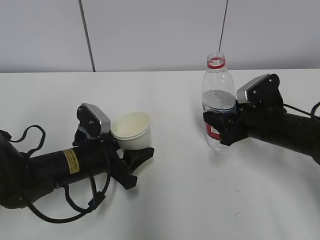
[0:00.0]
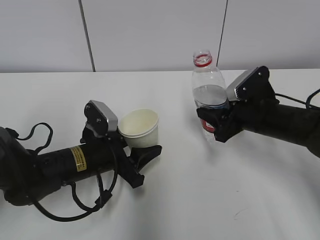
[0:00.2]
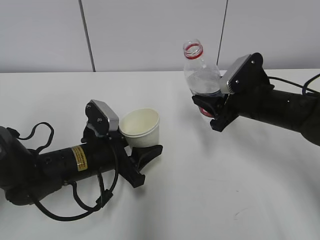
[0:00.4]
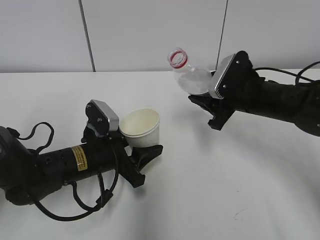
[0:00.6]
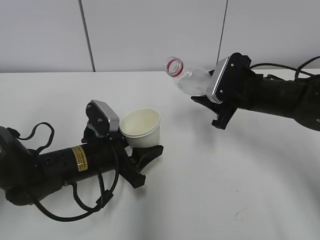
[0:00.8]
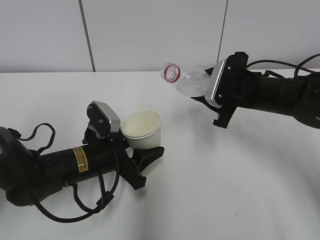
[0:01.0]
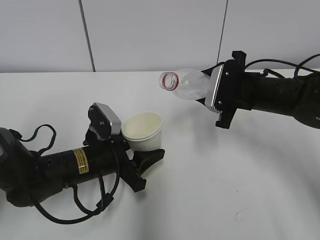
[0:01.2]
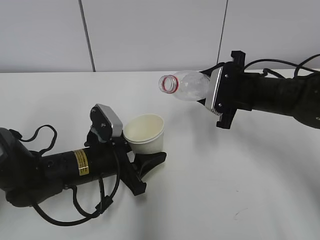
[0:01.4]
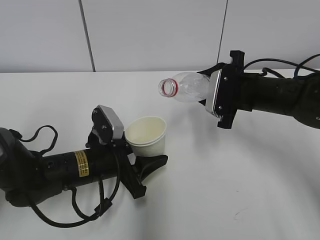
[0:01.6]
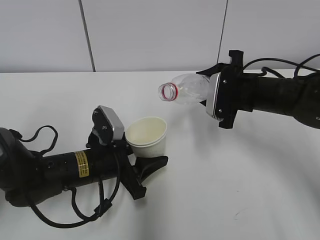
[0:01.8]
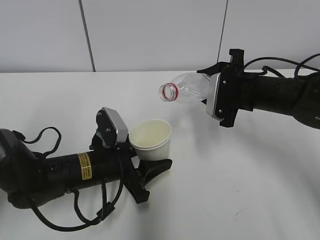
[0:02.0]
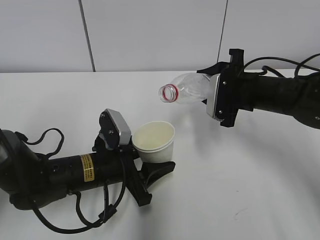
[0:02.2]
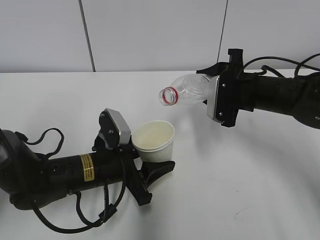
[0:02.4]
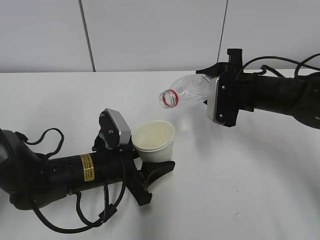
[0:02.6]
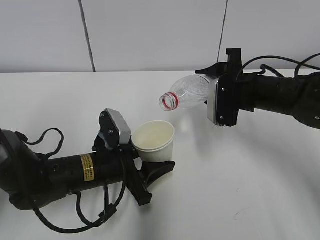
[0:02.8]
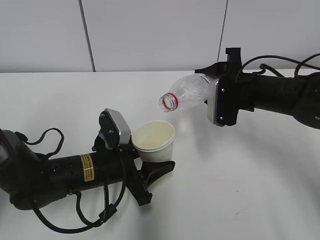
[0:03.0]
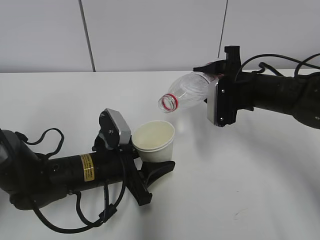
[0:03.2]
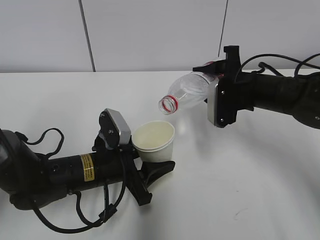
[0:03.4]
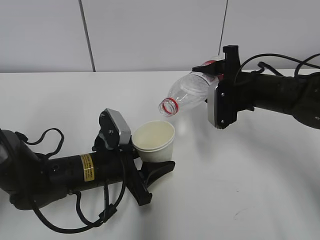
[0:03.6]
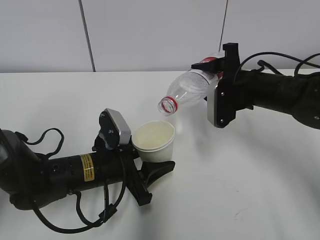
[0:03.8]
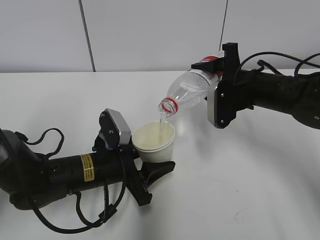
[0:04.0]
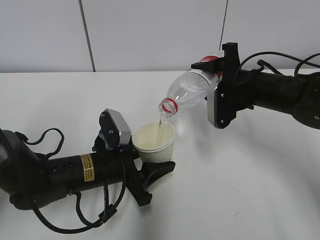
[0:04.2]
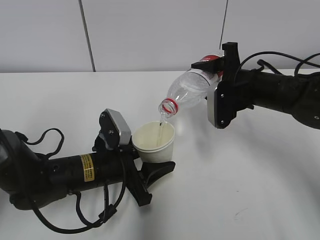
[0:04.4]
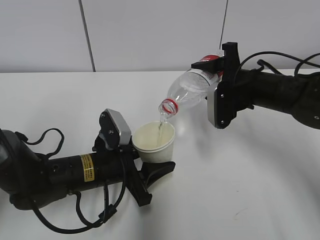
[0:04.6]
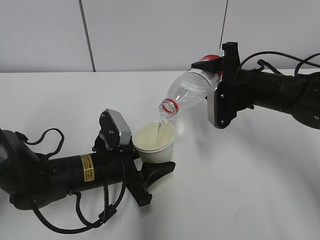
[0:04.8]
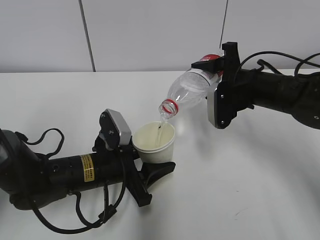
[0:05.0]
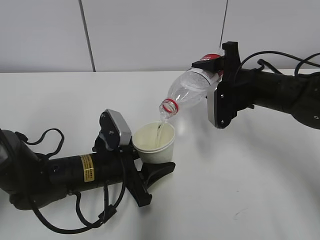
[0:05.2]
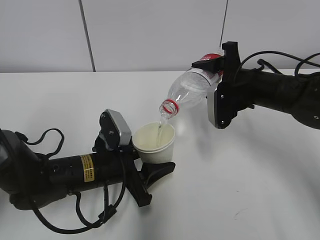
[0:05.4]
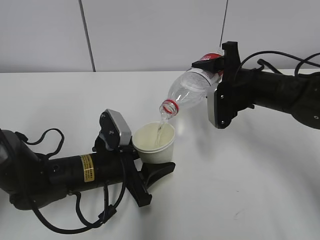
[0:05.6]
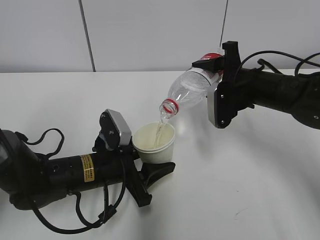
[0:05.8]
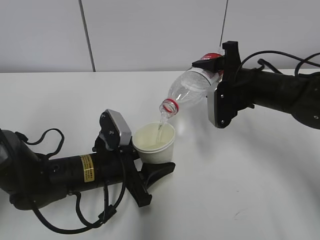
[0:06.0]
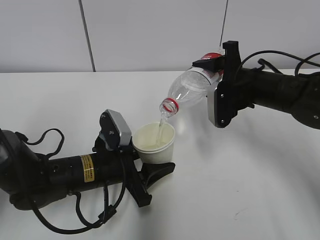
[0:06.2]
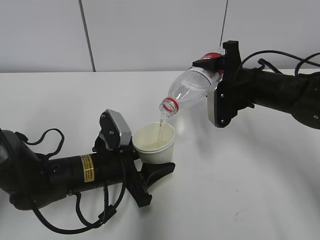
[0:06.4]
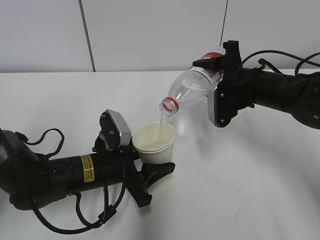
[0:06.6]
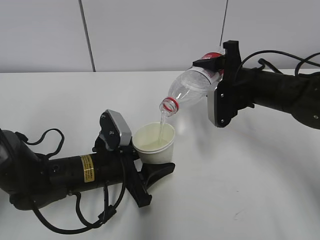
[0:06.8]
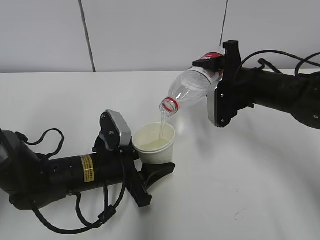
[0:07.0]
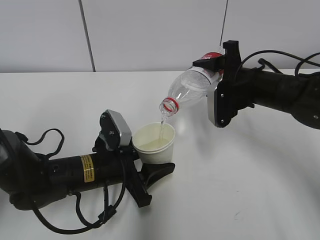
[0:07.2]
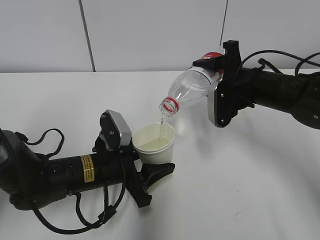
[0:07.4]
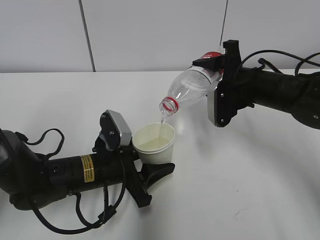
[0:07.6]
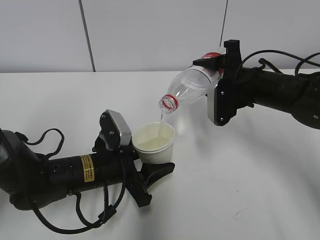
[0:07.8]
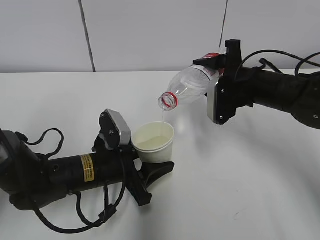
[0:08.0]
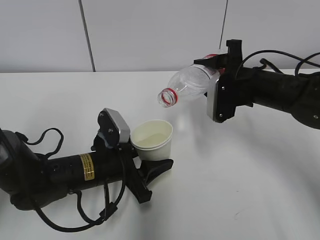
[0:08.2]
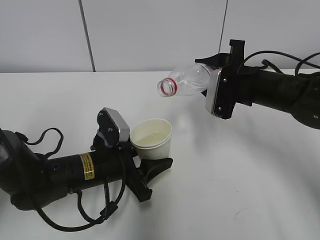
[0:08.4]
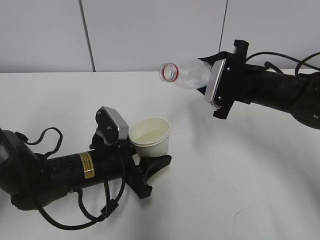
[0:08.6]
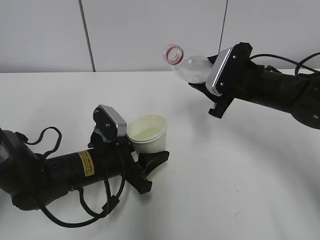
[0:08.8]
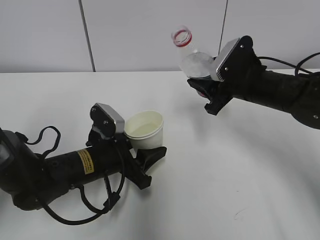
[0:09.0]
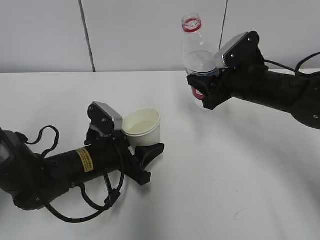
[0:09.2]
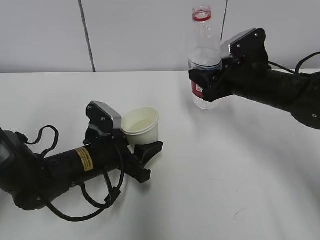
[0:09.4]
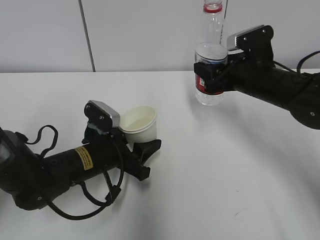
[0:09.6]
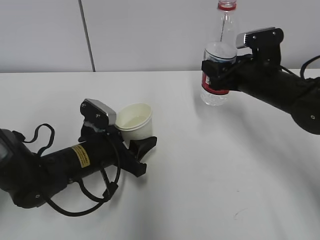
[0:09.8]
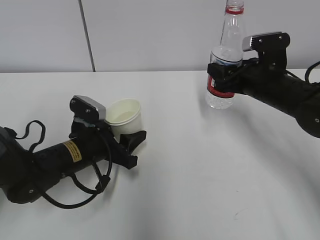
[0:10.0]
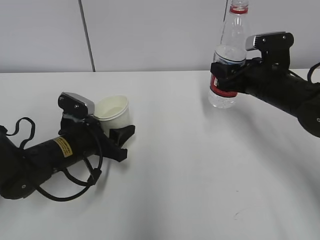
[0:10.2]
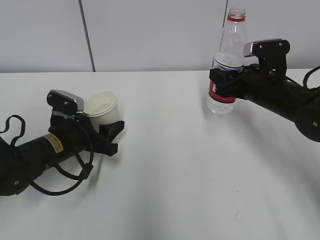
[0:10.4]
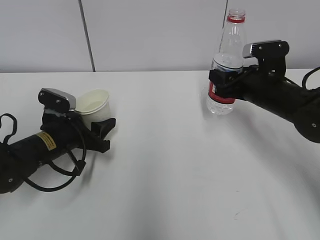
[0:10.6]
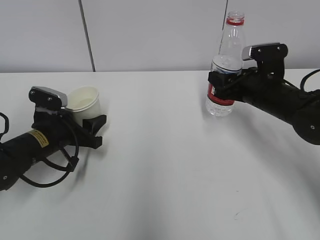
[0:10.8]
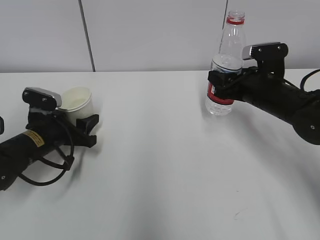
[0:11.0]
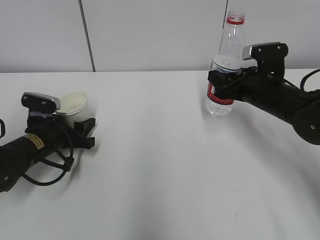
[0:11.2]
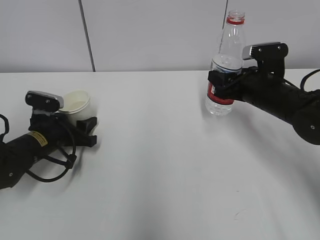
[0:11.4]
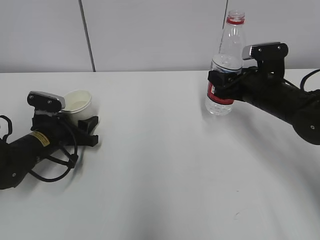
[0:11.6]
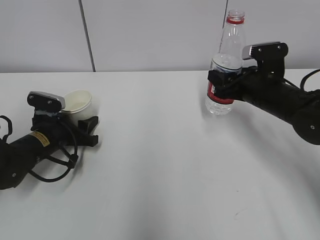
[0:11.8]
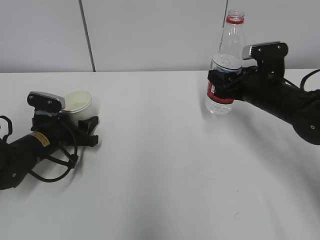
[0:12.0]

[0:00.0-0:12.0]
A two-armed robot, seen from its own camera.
Step, 0:01.4 to 0:04.8: Fill water with the left hand.
Step, 0:01.4 to 0:04.8: Pour water with the right hand.
Step, 0:06.4 to 0:08.2: Place the paper cup with the left hand.
Step, 0:08.4 to 0:10.2: Place the water bottle with the right hand.
0:00.0 to 0:01.6: The right gripper shifts about 5 cm upward.
0:01.6 to 0:03.0: The grippers stay close to where they were, moving slightly.
0:03.0 to 0:04.4: The grippers make only small movements.
0:04.4 to 0:07.6: Neither gripper changes place.
0:09.0 to 0:10.4: The left gripper shifts roughly 5 cm to the left.
0:10.4 to 0:12.0: The left gripper moves to the left, about 5 cm.

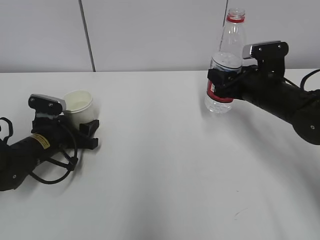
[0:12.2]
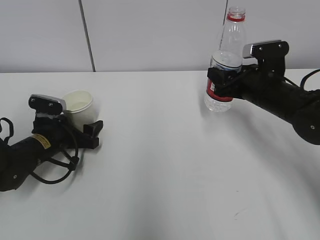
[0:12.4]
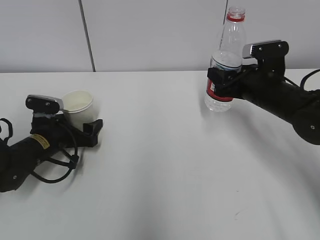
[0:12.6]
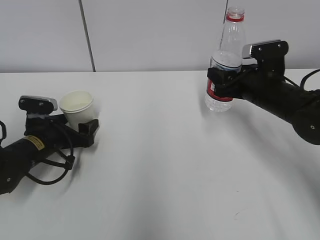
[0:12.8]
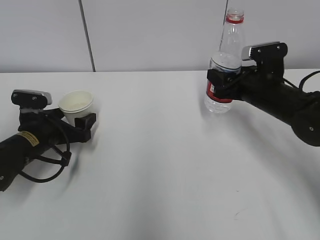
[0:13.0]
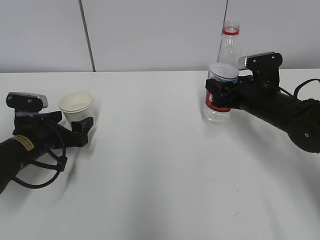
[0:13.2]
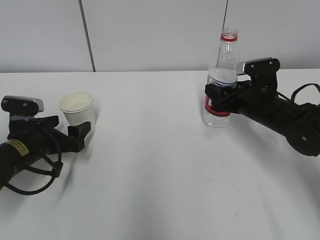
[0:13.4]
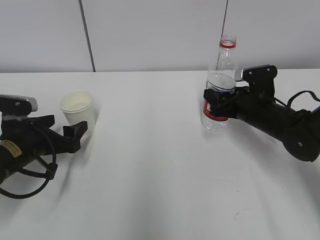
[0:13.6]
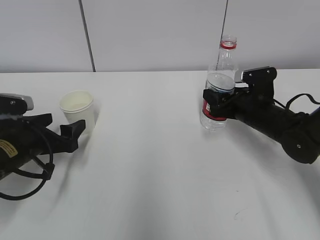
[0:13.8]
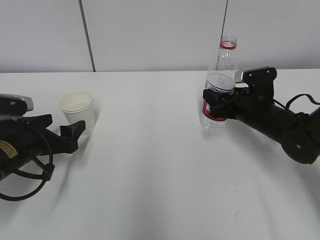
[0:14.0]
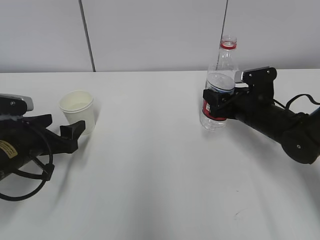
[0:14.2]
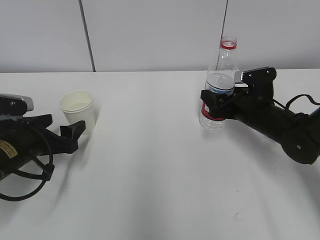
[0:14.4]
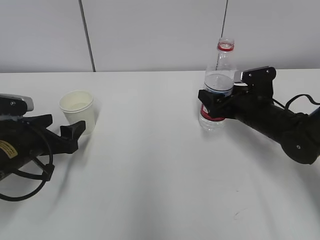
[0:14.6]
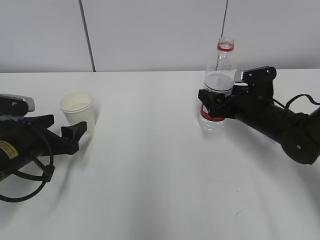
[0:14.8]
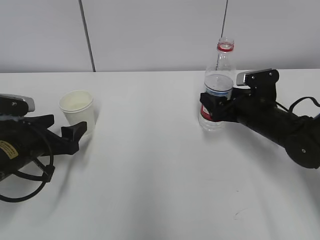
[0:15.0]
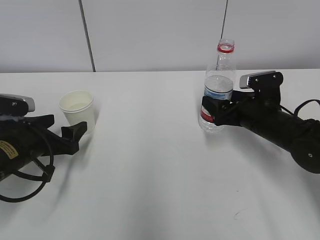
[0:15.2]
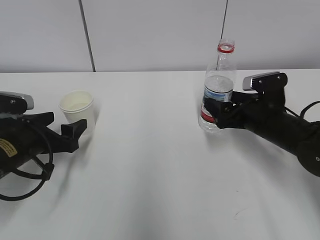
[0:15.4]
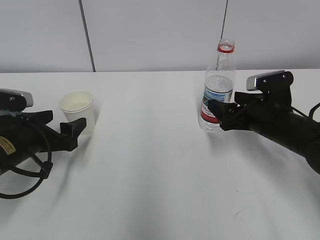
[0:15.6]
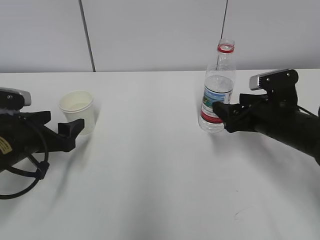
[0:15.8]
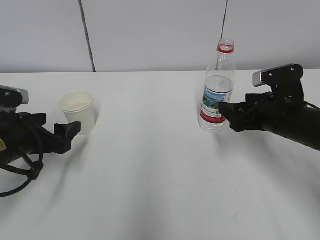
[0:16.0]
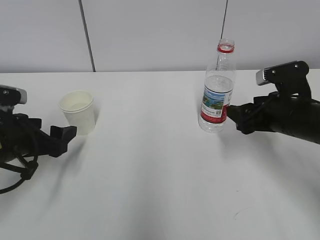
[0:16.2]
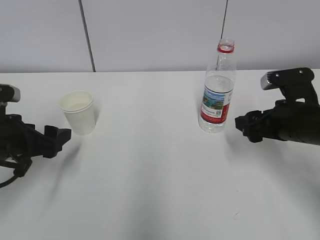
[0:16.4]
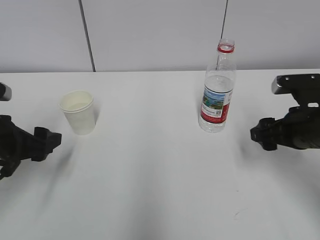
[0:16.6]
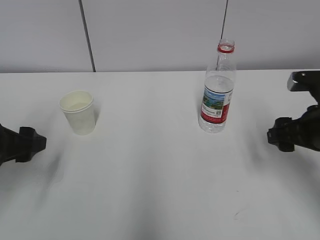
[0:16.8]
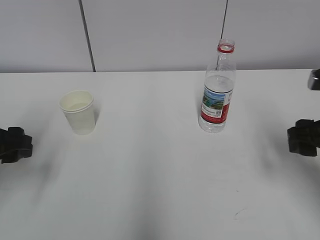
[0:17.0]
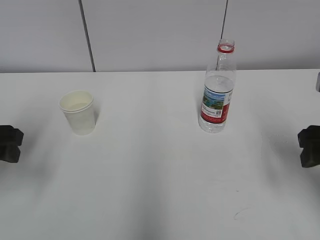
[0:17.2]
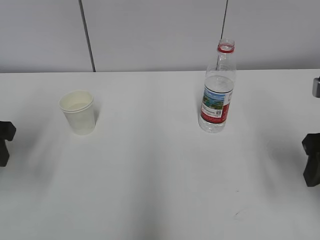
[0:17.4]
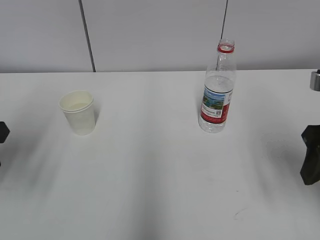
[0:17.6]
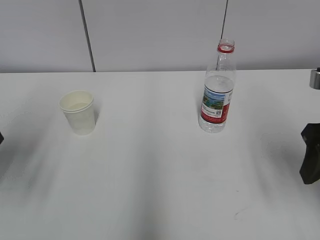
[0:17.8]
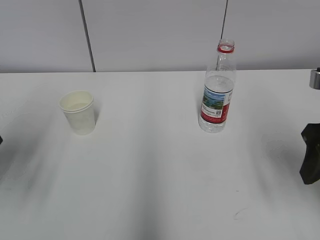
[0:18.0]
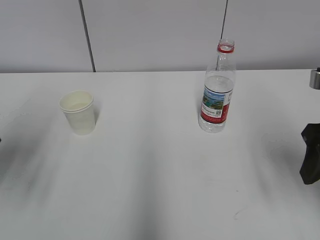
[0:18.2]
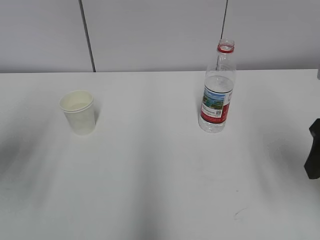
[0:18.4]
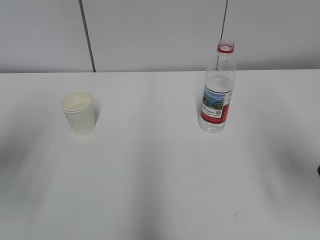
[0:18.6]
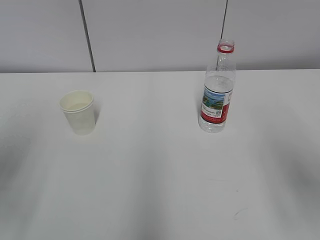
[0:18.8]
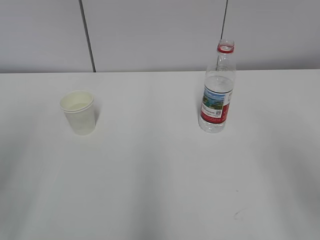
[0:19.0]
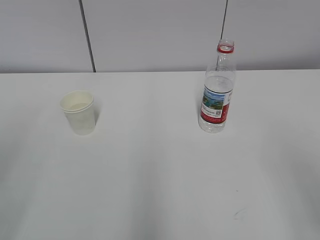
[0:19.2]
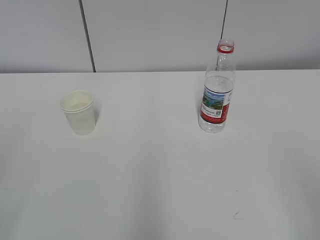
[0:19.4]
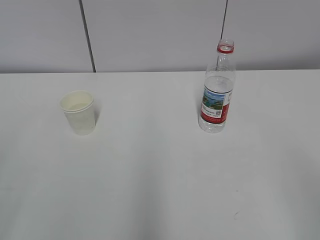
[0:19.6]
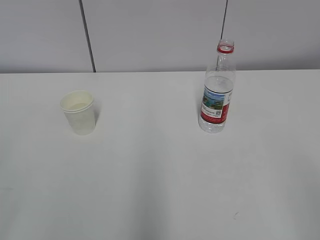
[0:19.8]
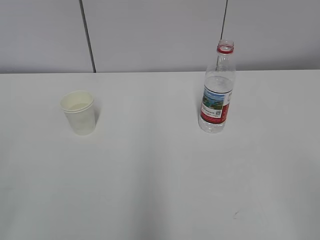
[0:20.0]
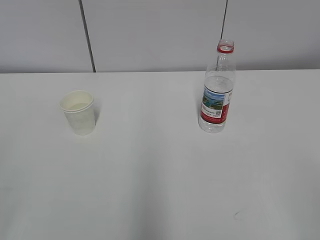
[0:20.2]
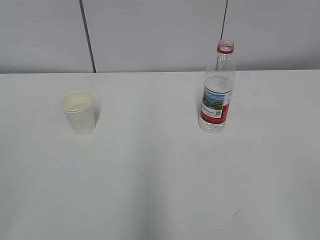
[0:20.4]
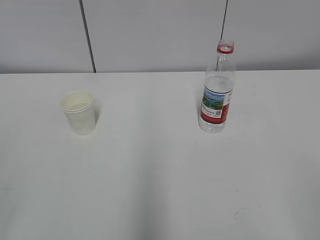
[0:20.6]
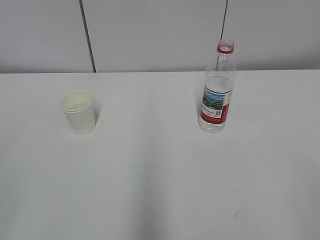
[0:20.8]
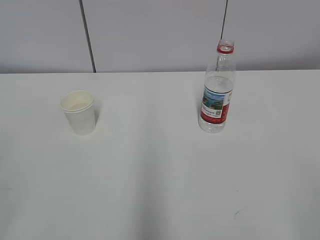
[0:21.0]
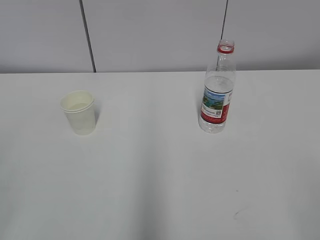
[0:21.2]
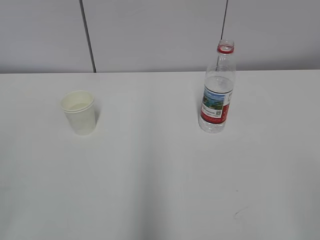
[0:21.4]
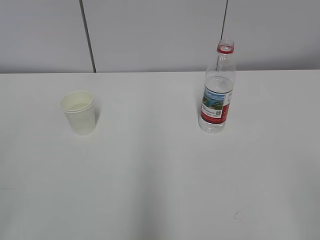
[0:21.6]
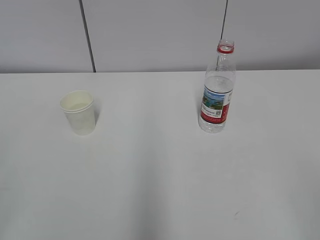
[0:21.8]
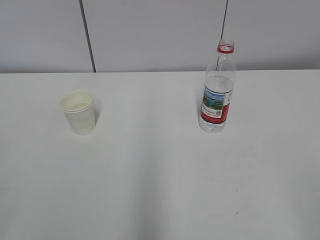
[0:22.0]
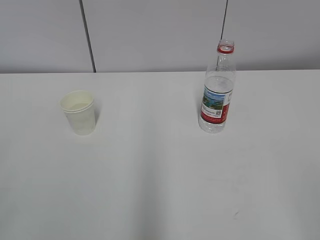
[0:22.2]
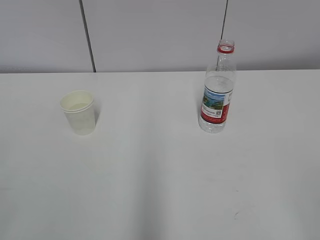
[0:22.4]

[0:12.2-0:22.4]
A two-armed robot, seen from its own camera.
0:12.2 to 0:13.6: The left gripper moves backward, about 5 cm, and opens.
0:13.6 to 0:15.2: The right gripper opens up.
0:15.2 to 0:16.6: The left gripper shifts about 5 cm upward; the right gripper goes approximately 10 cm backward and upward.
0:16.6 to 0:18.0: The left gripper is displaced upward by approximately 10 cm, and closes its fingers, while the right gripper travels upward and backward by approximately 10 cm.
0:18.0 to 0:19.4: Both grippers move backward, about 15 cm.
0:21.0 to 0:22.4: Both grippers stay put.
